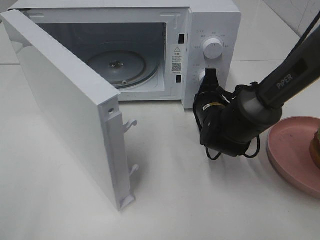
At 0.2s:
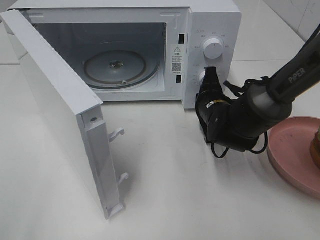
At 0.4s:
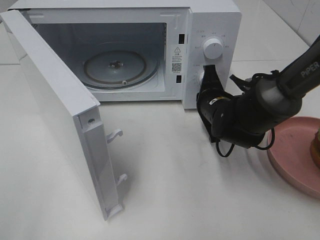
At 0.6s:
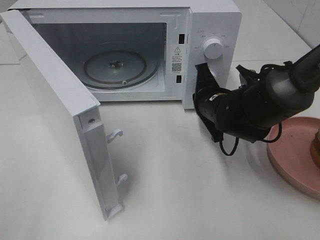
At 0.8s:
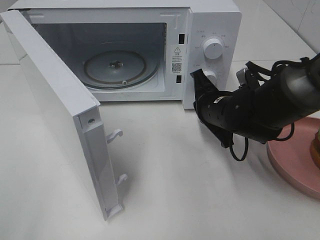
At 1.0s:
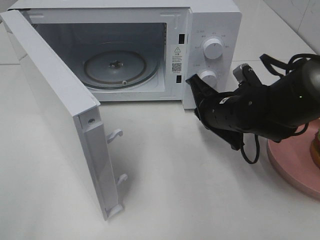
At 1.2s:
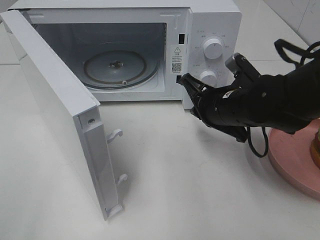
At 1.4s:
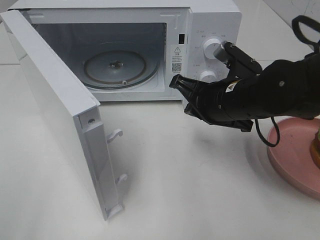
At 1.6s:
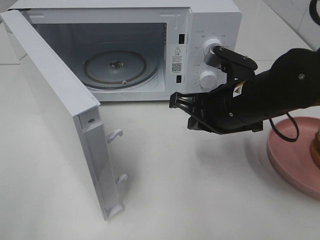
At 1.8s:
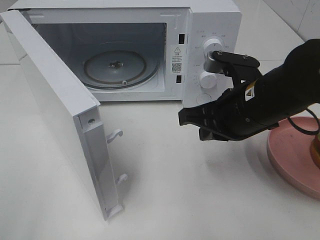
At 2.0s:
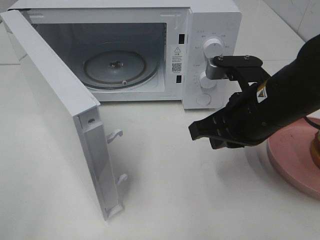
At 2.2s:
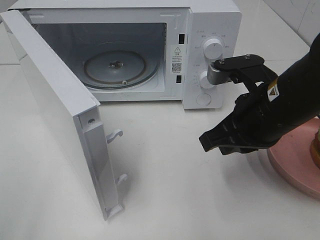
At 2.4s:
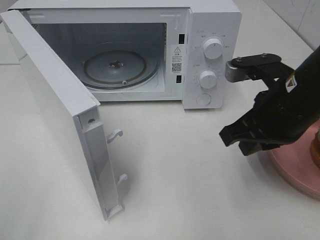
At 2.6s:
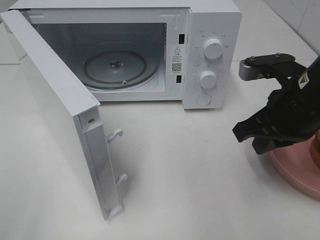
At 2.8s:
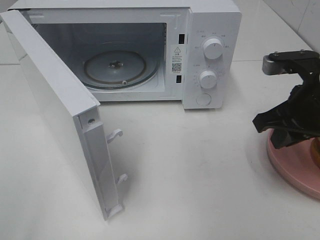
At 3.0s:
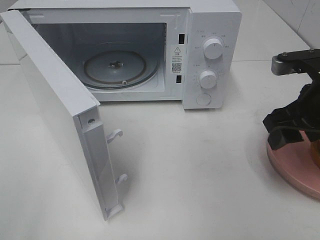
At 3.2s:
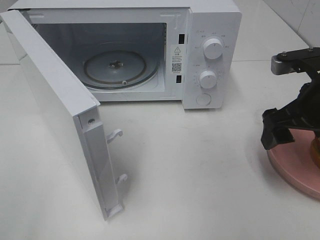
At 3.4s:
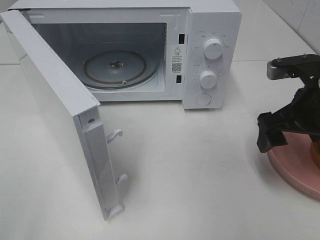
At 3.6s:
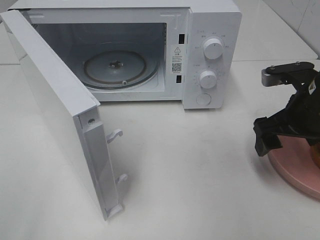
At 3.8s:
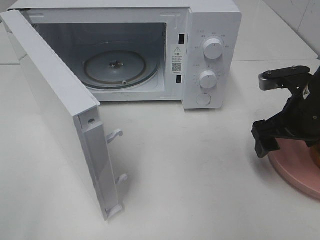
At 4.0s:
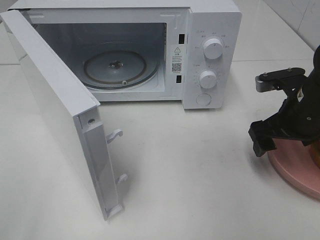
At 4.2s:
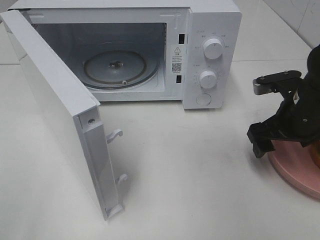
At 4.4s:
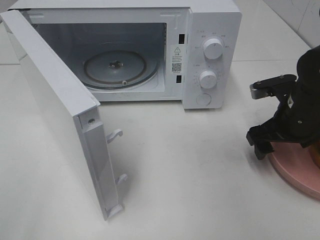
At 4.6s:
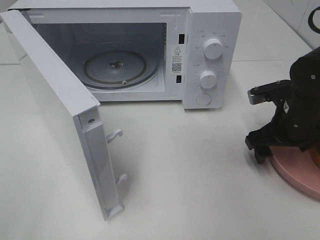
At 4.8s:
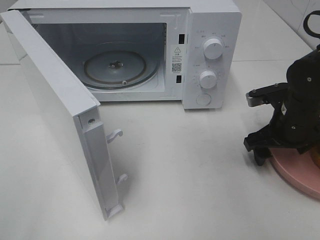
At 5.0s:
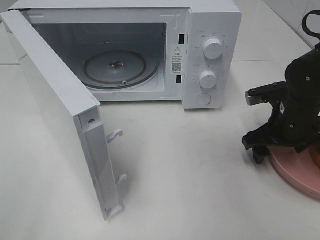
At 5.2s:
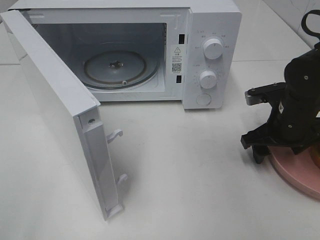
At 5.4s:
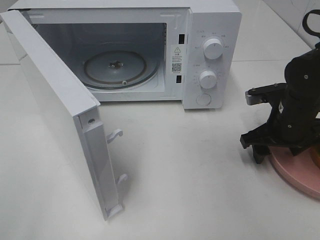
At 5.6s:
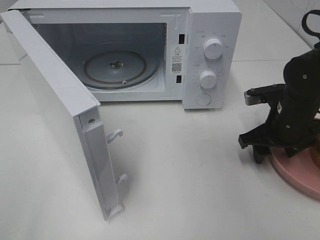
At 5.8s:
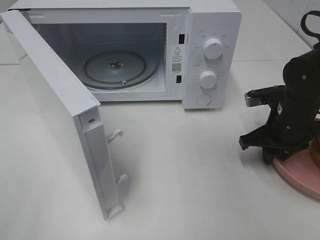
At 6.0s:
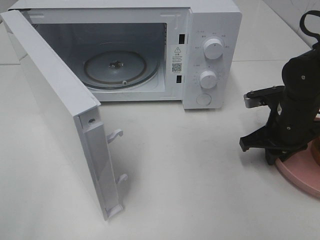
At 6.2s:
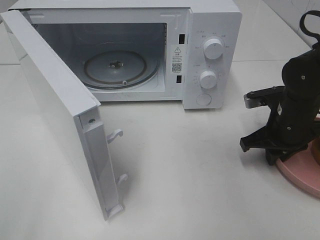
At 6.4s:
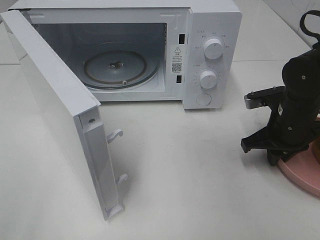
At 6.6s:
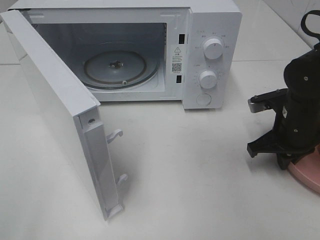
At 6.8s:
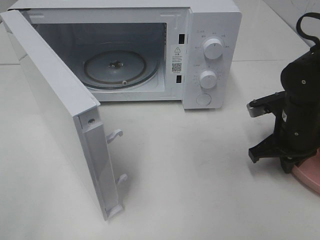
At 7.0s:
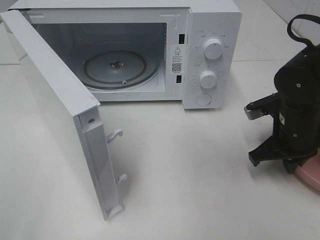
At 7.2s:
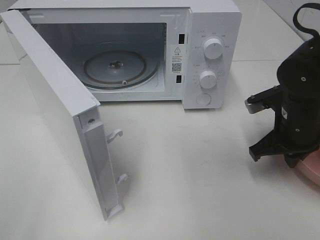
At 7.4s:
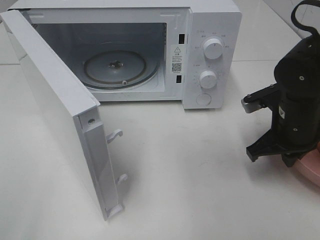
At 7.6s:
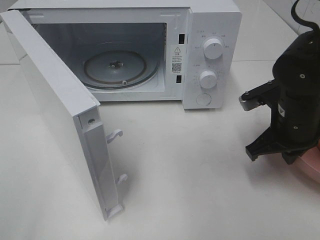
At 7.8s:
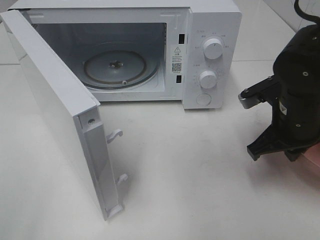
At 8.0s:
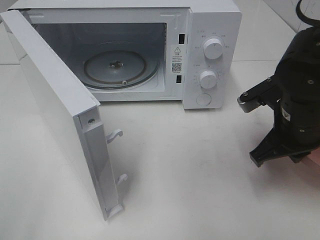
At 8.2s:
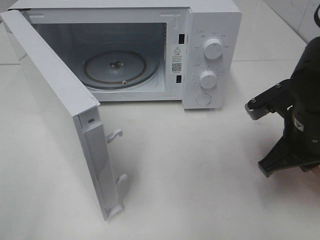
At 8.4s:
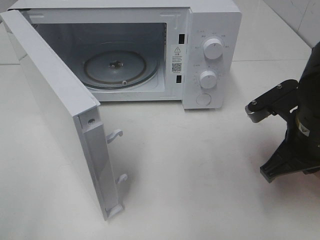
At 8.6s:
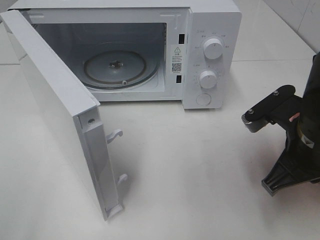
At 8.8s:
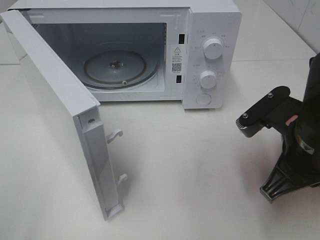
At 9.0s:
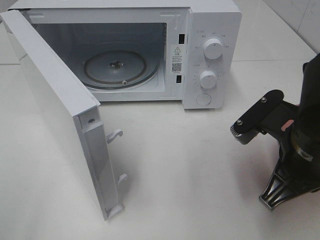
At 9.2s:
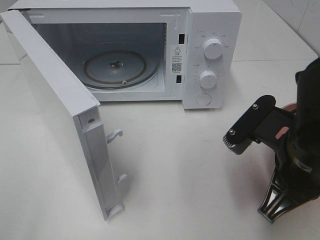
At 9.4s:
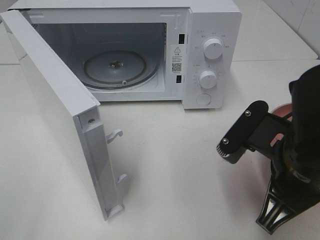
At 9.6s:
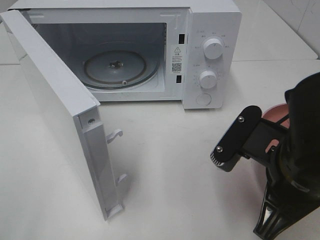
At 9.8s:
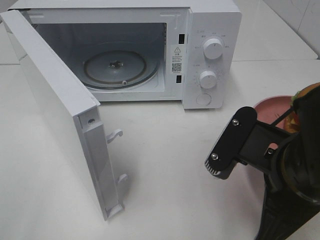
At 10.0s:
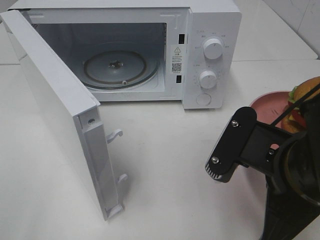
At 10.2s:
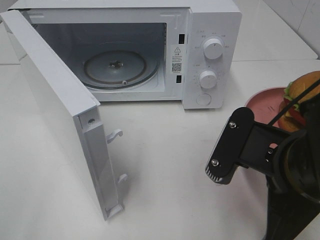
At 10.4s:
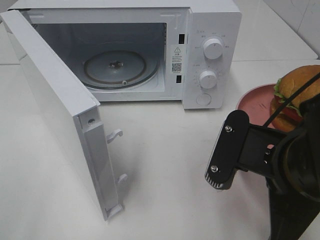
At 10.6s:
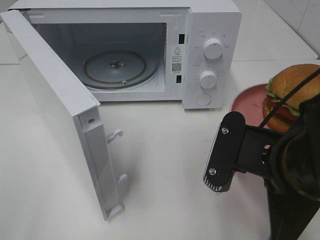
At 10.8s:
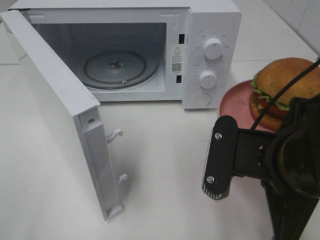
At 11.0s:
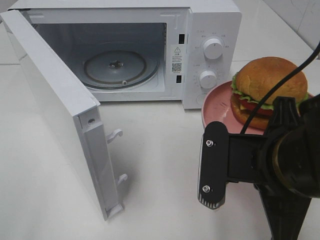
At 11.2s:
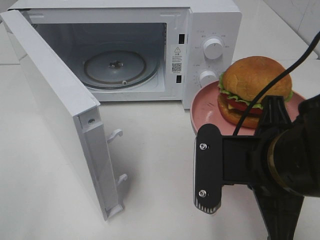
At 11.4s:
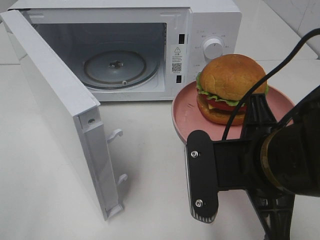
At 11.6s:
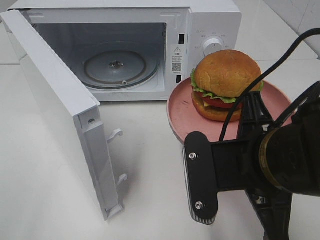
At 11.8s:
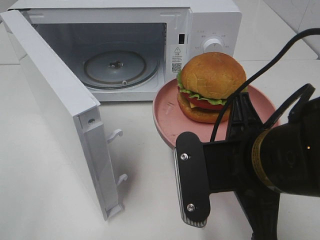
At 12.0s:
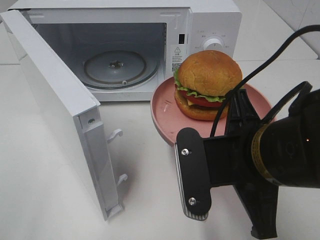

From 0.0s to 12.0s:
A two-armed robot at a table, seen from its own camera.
Task of the whole recording: Heat the burger.
Step, from 1.0s to 7.2s: Right hand: grab the plate with the hamburger.
From 0.0s to 1.6s: The right gripper goes about 15 cm upward and backward.
From 1.6s to 3.0s: The right gripper shifts about 10 cm to the right, and opens up.
From 3.0s to 4.4s: The right gripper shifts some 10 cm downward and forward.
From 4.4s to 6.0s: The right gripper closes up.
From 6.0s to 7.6s: The right gripper changes place by about 5 cm.
From 7.6s to 9.0s: The right gripper moves backward, roughly 10 cm.
From 9.0s to 10.4s: The right gripper shifts by approximately 5 cm.

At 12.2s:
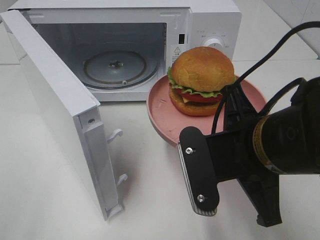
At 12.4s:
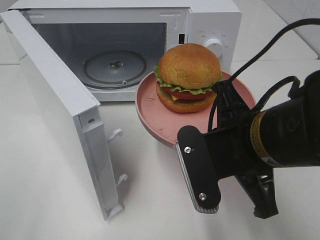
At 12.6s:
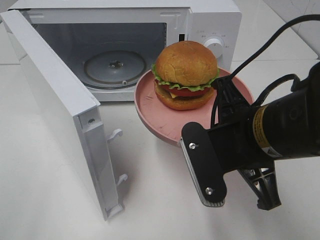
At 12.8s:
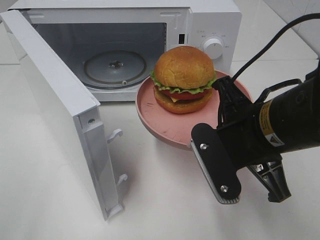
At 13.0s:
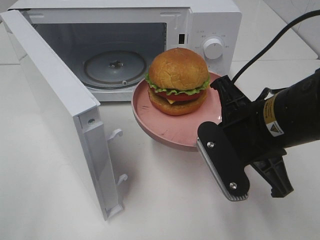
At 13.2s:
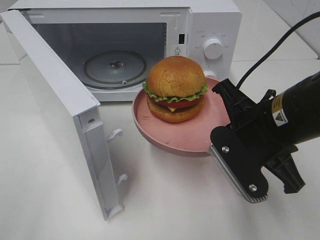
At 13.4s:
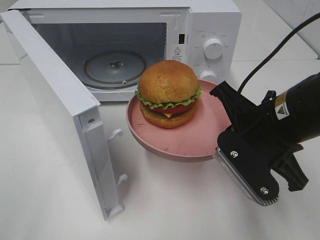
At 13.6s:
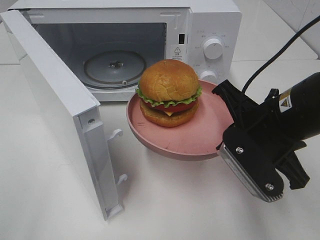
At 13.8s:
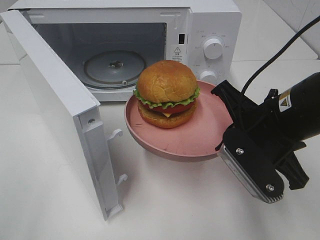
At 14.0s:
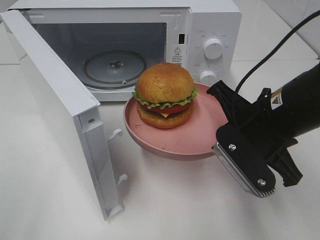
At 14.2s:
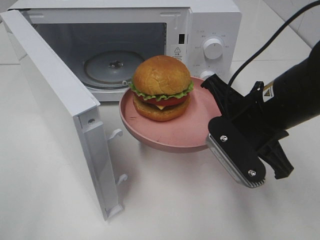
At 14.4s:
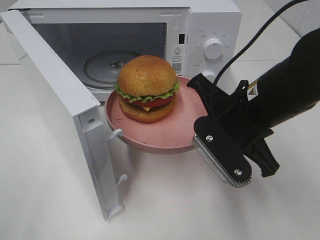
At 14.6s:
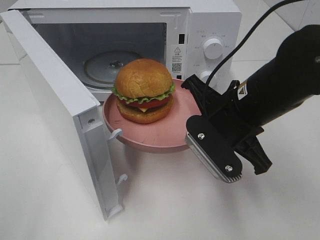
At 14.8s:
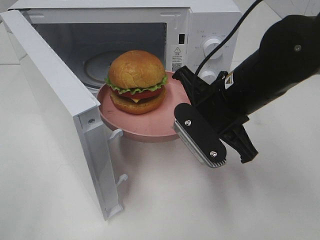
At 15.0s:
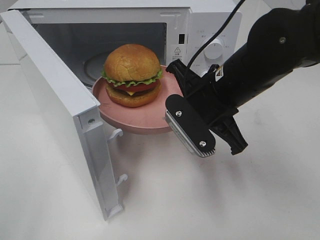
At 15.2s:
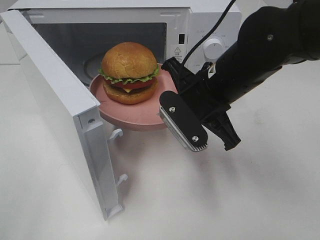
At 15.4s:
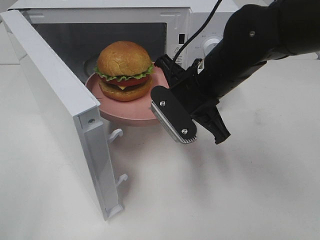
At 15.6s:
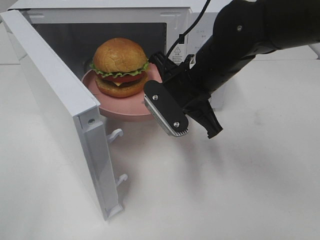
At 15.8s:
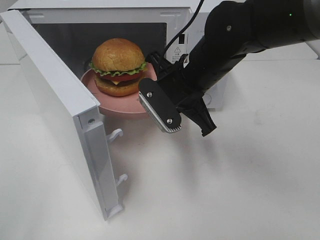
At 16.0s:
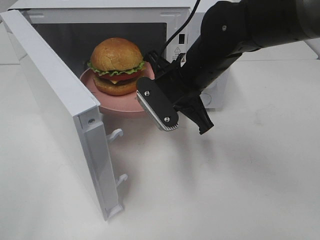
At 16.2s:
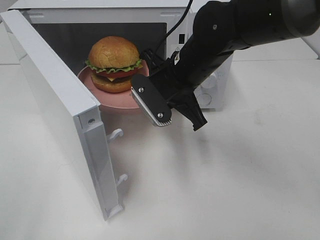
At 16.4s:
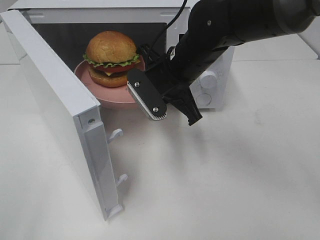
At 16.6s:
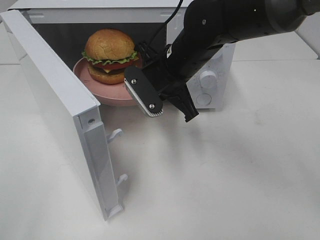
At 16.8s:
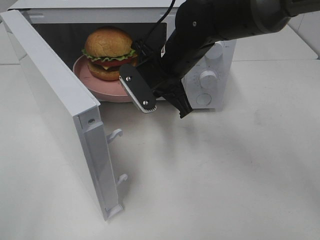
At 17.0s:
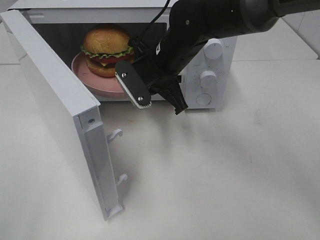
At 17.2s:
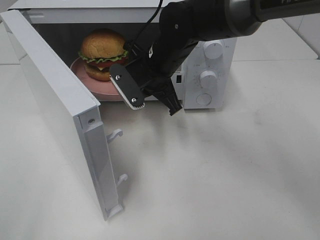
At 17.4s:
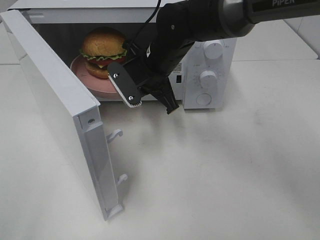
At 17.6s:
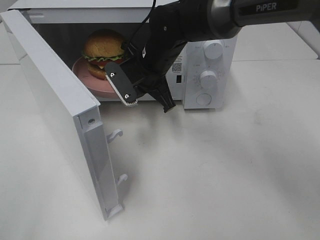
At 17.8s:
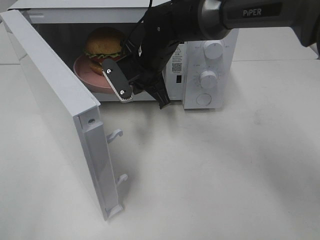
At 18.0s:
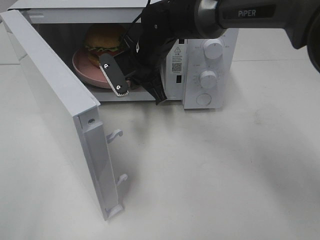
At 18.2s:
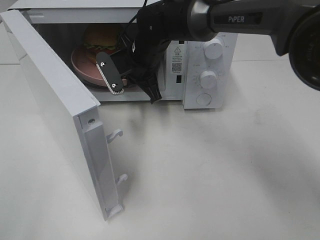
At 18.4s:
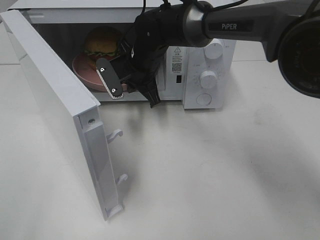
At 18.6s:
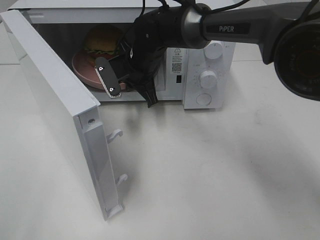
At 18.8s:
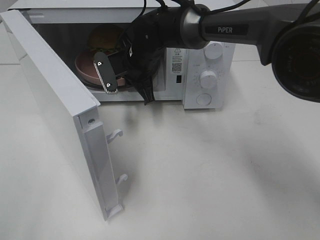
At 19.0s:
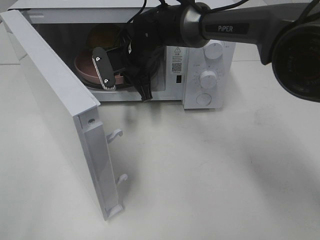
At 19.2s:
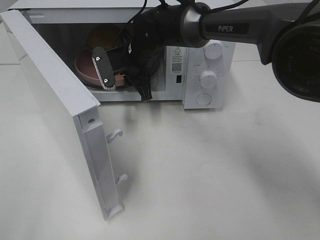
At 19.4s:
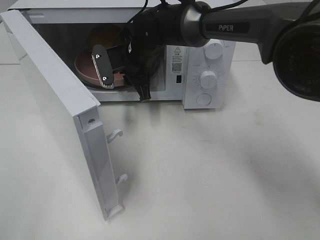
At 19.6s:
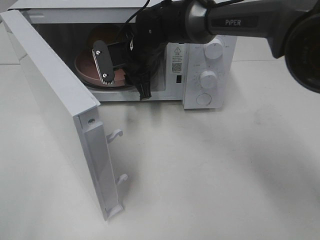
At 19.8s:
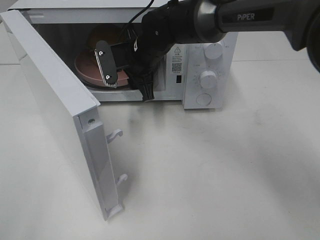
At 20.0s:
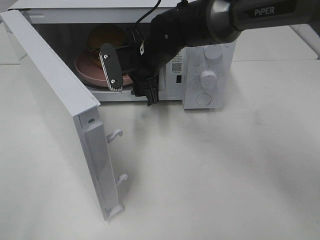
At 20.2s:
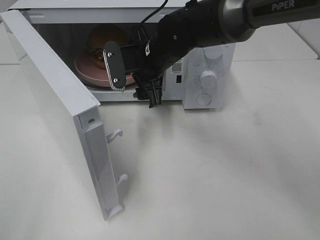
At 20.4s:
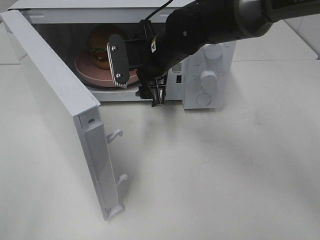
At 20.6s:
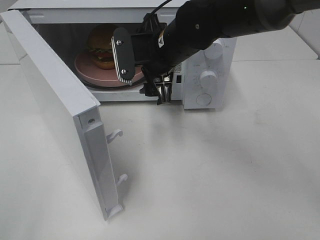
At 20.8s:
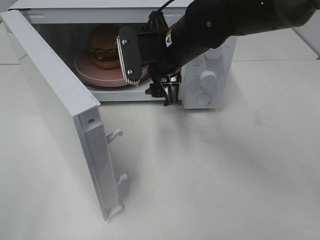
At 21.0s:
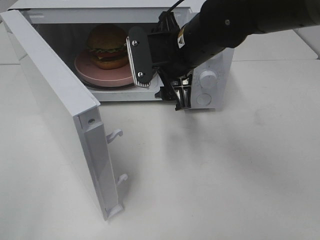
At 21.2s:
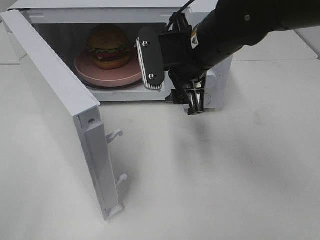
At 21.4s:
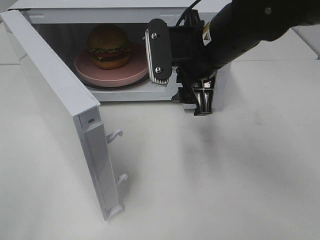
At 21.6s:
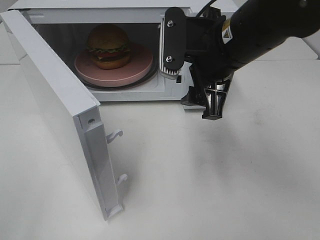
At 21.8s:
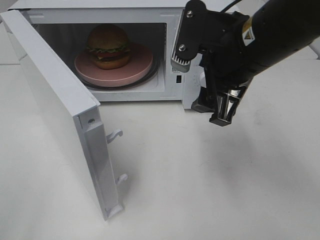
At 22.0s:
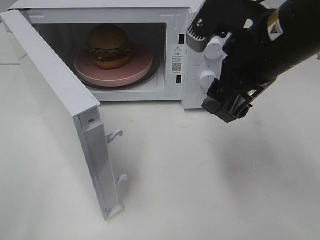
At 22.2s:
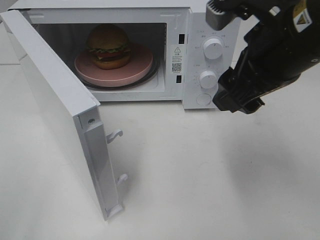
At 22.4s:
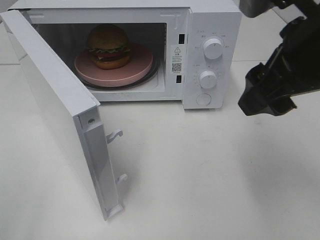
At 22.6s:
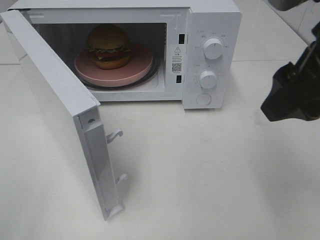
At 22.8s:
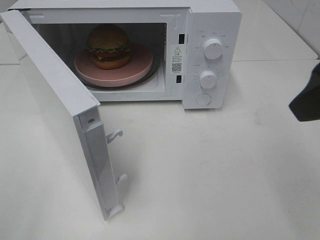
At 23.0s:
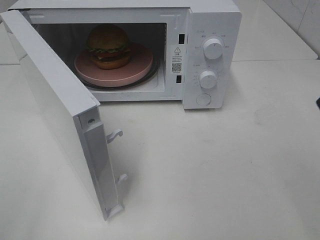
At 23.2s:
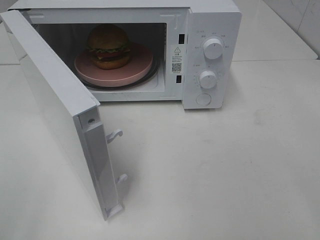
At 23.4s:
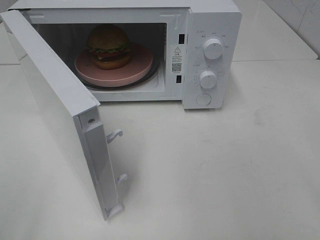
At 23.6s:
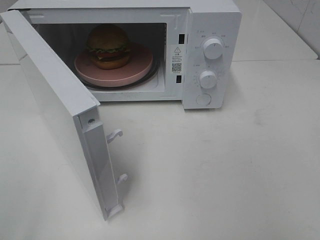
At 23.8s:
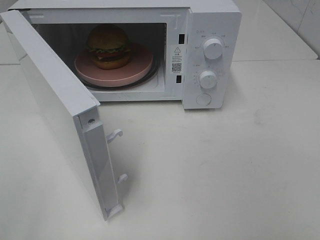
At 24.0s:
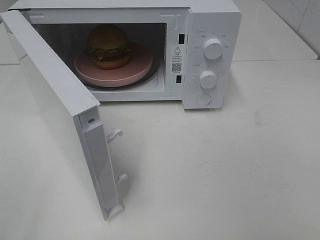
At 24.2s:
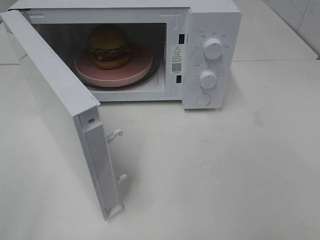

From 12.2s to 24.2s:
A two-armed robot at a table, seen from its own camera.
Task of the whole recording: Heat the burger.
Step, from 12.2s to 19.8s: Right hand: place the plate in the microwave.
From 12.2s to 13.8s: The right gripper goes some 5 cm forward.
From 13.8s to 15.2s: The right gripper travels forward and to the left by roughly 10 cm.
From 15.2s to 16.6s: The right gripper is displaced forward by some 5 cm.
From 16.6s to 18.2s: The right gripper travels forward and to the left by about 10 cm.
From 18.2s to 19.8s: The right gripper opens.
From 19.8s to 21.2s: The right gripper travels backward, to the right and upward by about 15 cm.
From 21.2s to 22.6s: The right gripper moves backward, to the right and upward, approximately 20 cm.
From 22.6s to 24.2s: The right gripper shifts roughly 20 cm backward and to the right.
